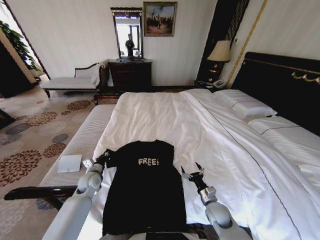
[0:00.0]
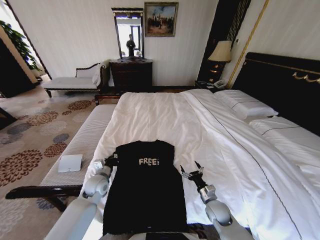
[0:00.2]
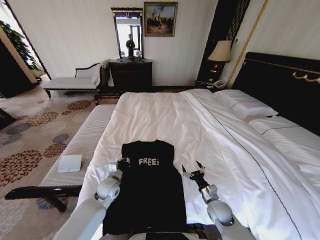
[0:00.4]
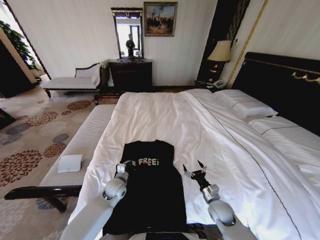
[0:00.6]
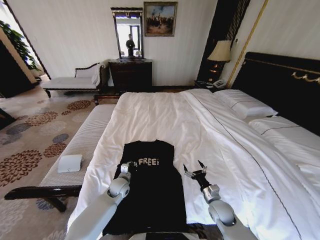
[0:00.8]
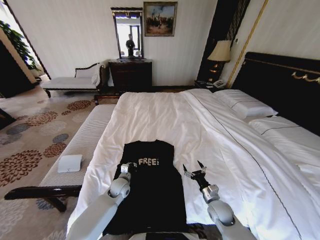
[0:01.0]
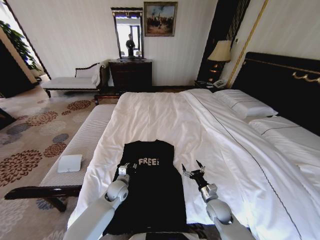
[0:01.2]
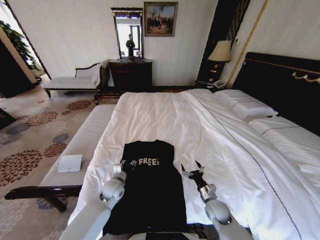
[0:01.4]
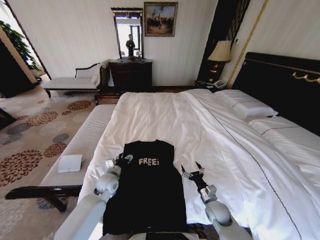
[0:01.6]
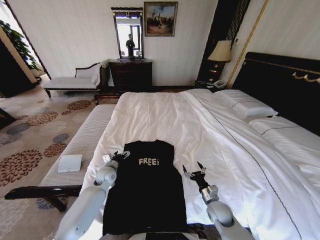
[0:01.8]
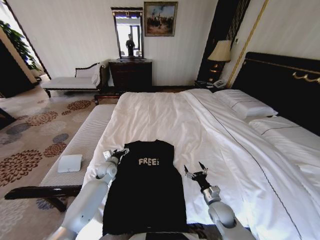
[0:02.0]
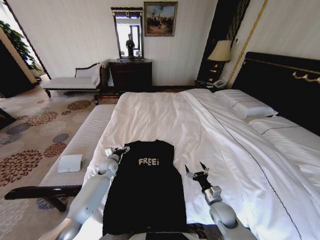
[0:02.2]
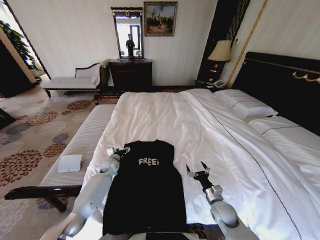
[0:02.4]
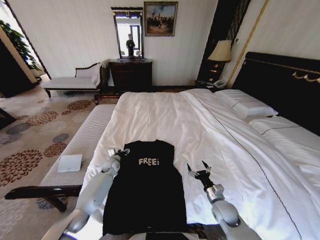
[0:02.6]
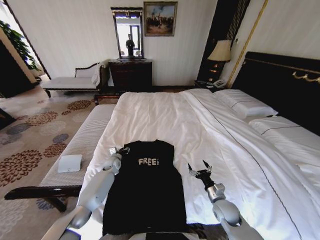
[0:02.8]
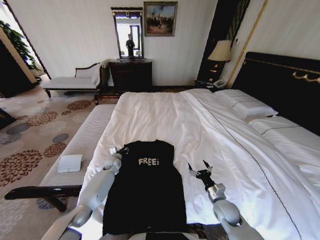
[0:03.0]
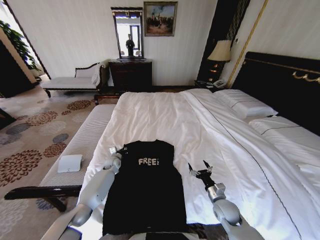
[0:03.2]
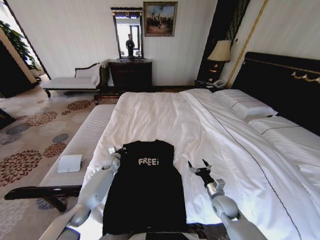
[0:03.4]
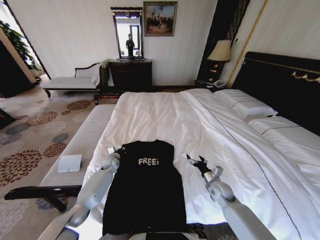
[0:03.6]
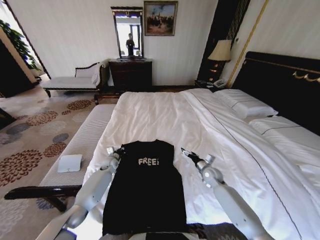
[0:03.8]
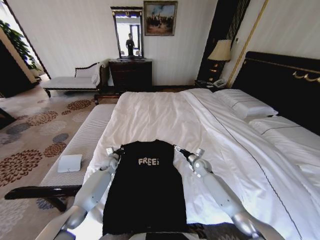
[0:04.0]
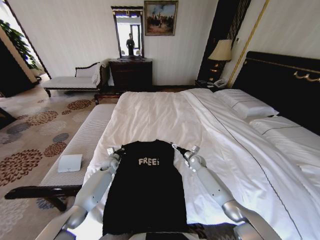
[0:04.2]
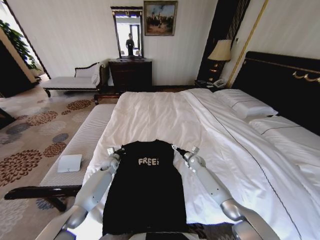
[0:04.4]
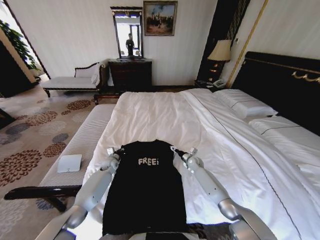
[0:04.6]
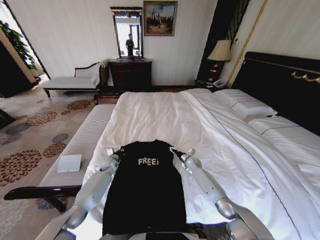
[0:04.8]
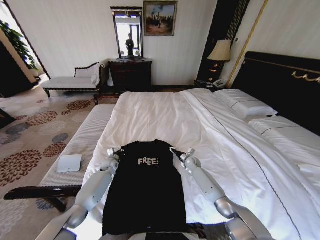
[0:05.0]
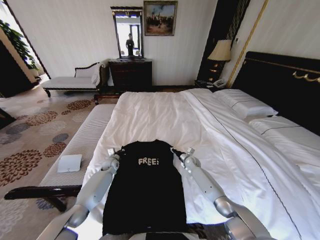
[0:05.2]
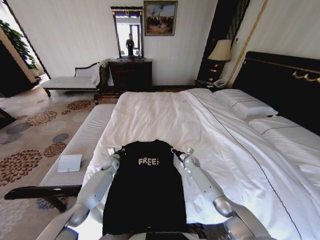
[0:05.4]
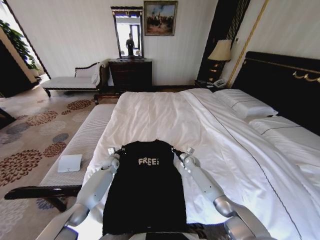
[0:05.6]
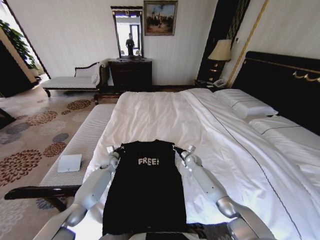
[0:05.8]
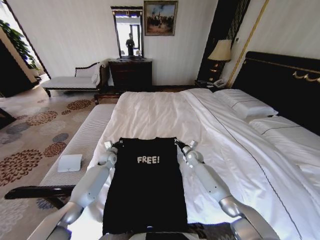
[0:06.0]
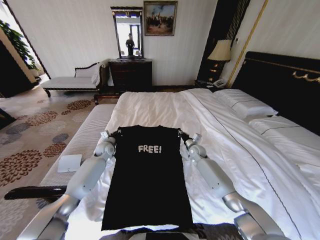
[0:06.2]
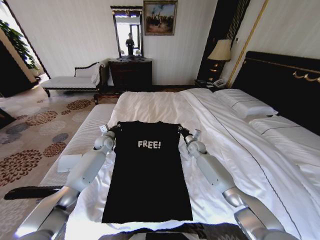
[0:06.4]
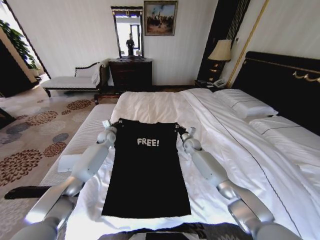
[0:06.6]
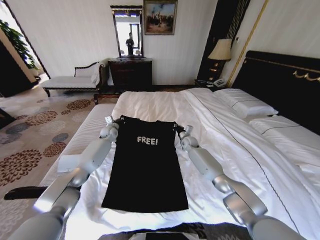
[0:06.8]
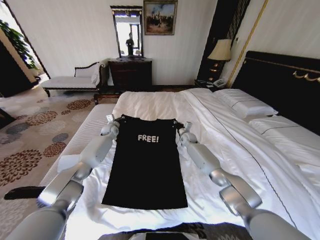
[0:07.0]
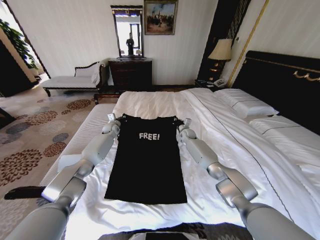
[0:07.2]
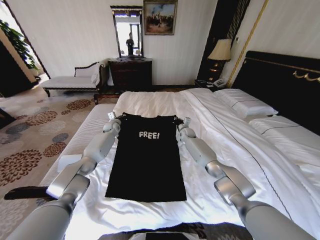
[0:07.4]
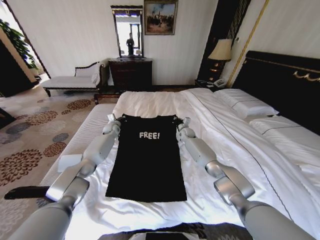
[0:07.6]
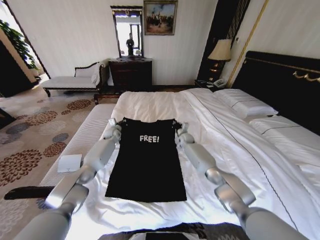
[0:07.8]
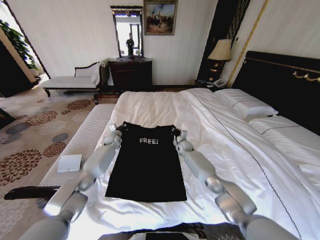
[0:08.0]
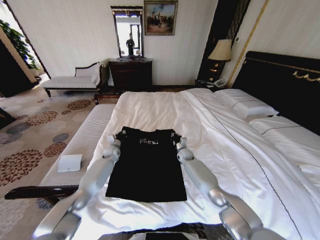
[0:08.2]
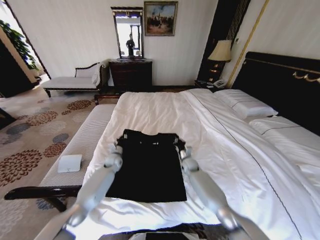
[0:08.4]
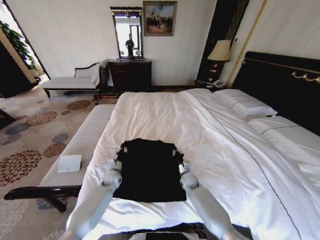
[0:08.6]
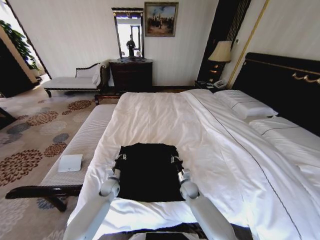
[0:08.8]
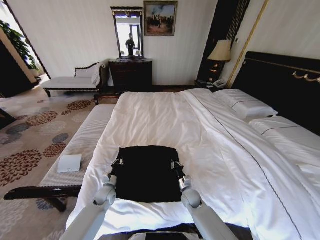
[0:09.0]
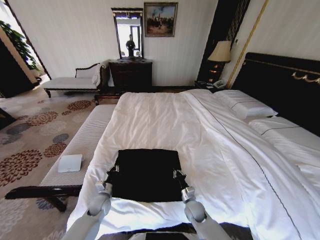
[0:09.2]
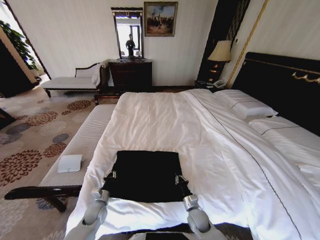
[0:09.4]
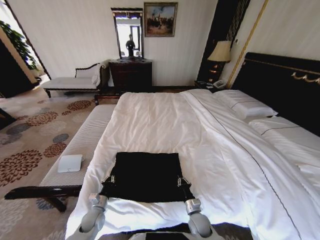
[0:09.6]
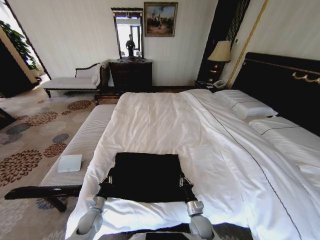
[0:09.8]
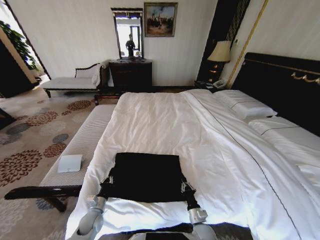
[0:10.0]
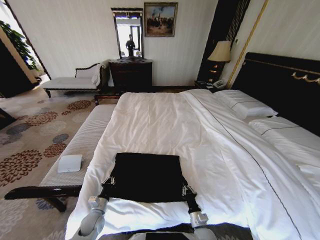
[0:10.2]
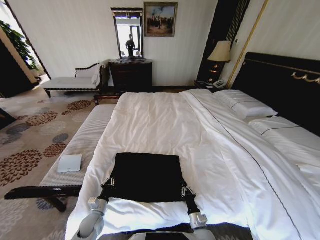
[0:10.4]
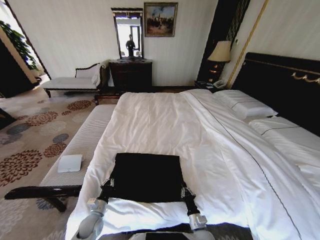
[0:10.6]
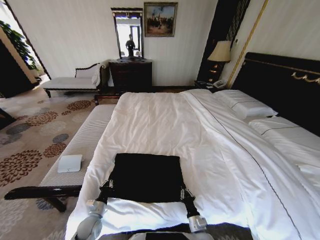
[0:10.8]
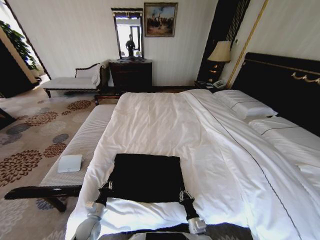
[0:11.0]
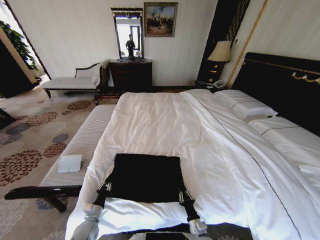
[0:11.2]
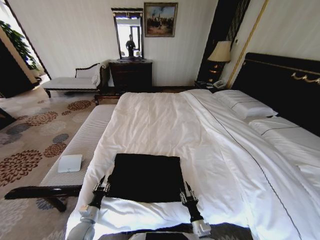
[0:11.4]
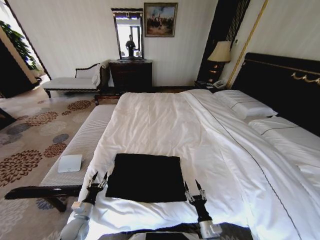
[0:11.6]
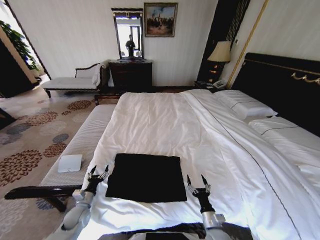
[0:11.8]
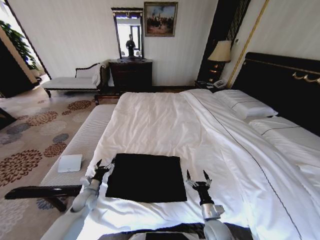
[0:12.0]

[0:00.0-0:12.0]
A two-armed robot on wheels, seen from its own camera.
Task of the whole recording: Fold the clothes on the bed.
0:00.0 to 0:01.6: The left gripper heads to the right, covering roughly 10 cm, and opens its fingers.
0:01.6 to 0:03.0: The left gripper goes approximately 15 cm forward and downward.
0:03.0 to 0:04.4: The left gripper closes its fingers; the right gripper shifts roughly 25 cm forward.
0:04.4 to 0:06.0: The left gripper is displaced upward by about 5 cm, while the right gripper closes.
0:06.0 to 0:07.6: Both grippers move forward and upward, about 15 cm.
0:07.6 to 0:09.0: The two grippers go roughly 35 cm backward and downward.
0:09.0 to 0:10.4: The two grippers go approximately 15 cm backward.
0:10.4 to 0:12.0: The right gripper travels upward by about 5 cm, and opens. Meanwhile the left gripper travels forward and upward by about 10 cm, and opens.

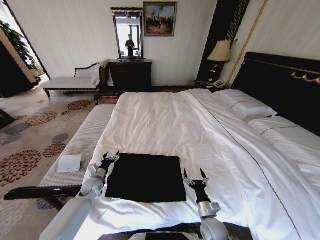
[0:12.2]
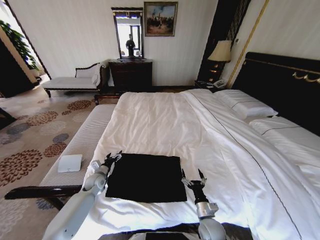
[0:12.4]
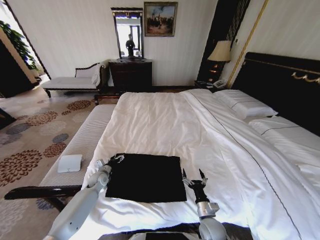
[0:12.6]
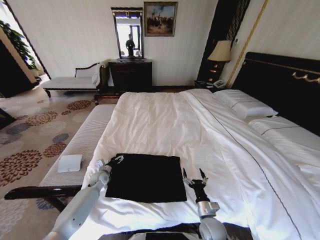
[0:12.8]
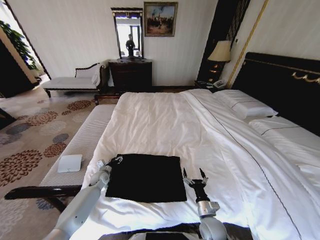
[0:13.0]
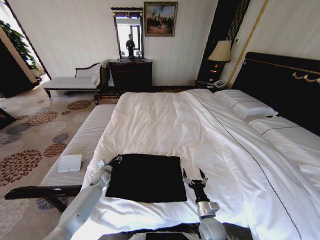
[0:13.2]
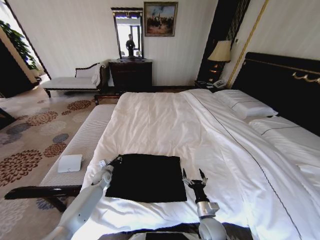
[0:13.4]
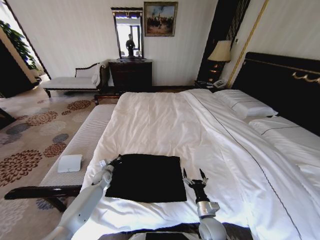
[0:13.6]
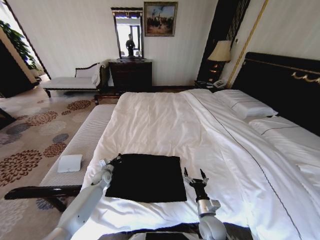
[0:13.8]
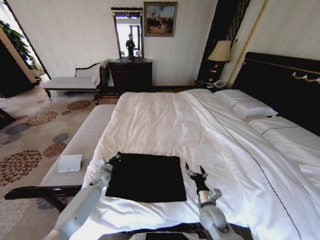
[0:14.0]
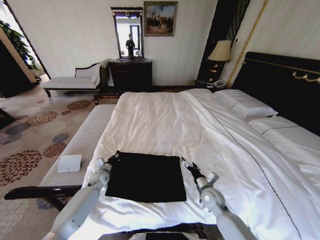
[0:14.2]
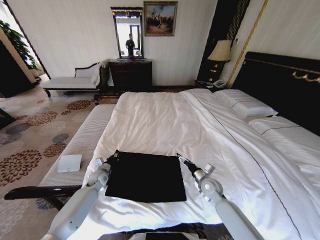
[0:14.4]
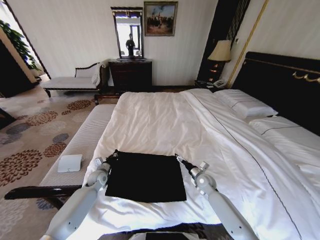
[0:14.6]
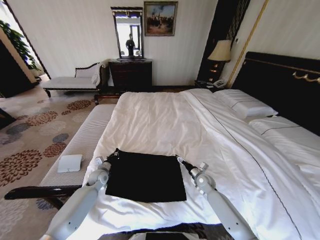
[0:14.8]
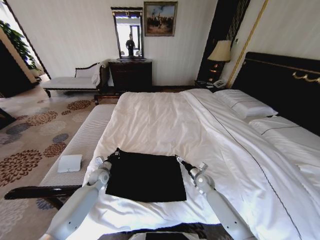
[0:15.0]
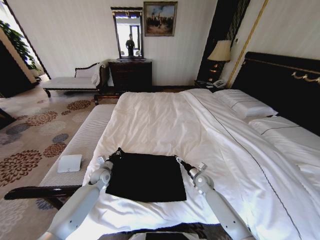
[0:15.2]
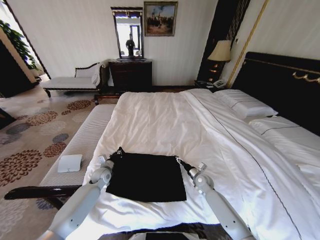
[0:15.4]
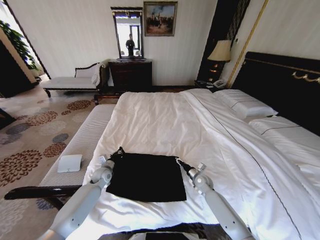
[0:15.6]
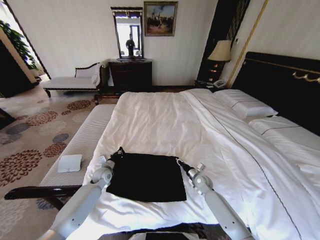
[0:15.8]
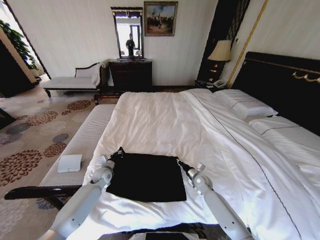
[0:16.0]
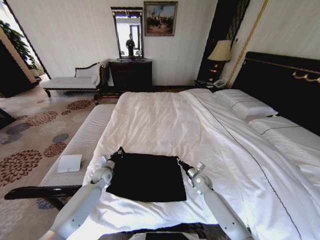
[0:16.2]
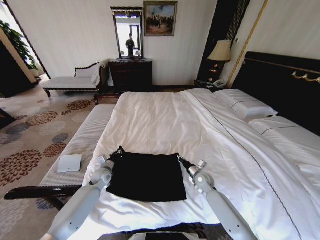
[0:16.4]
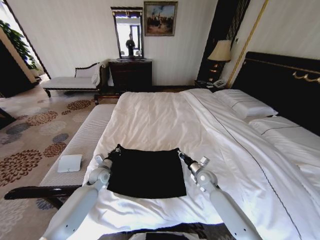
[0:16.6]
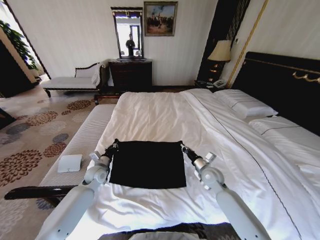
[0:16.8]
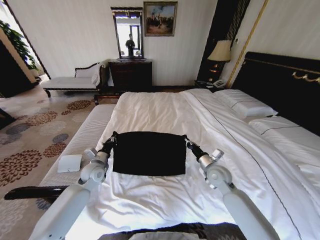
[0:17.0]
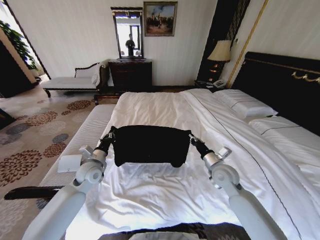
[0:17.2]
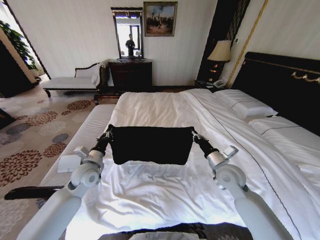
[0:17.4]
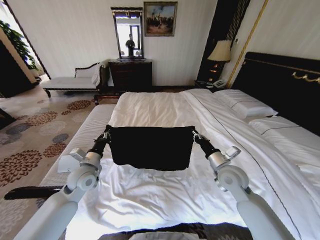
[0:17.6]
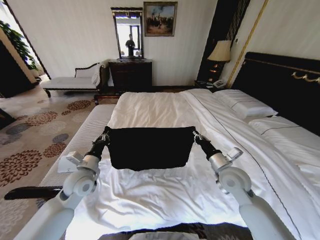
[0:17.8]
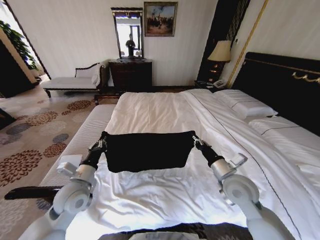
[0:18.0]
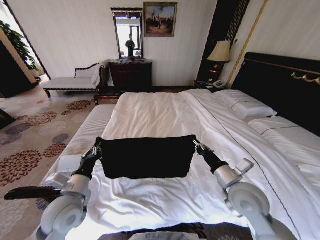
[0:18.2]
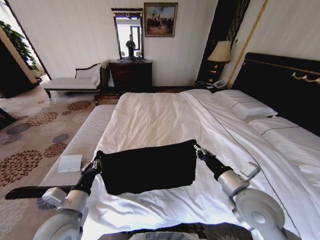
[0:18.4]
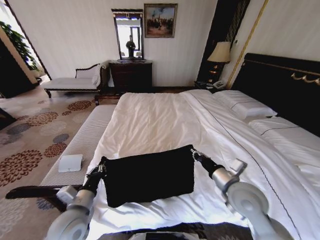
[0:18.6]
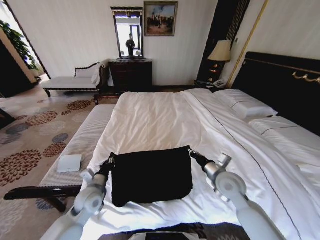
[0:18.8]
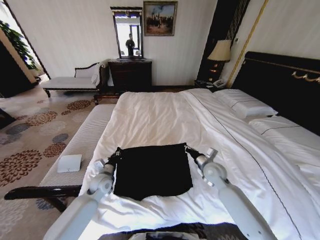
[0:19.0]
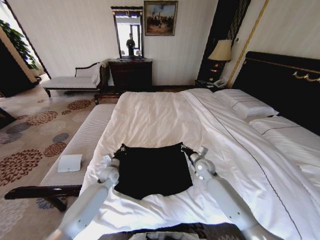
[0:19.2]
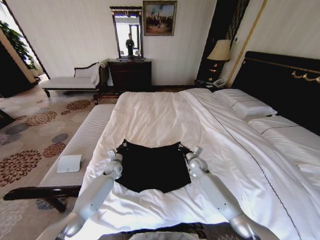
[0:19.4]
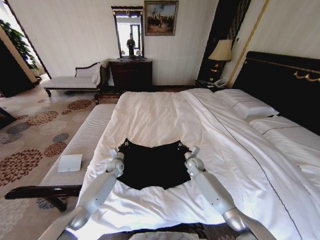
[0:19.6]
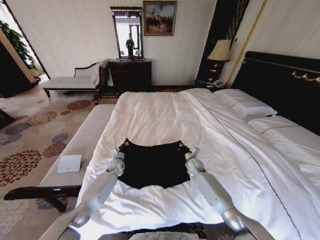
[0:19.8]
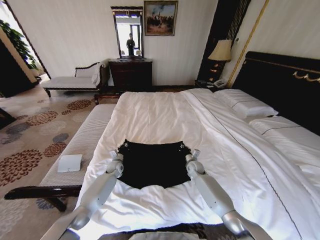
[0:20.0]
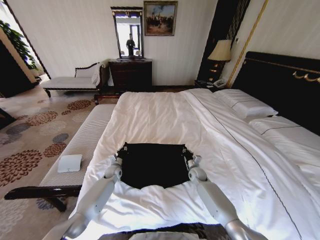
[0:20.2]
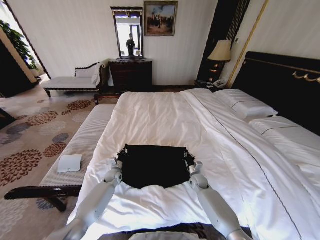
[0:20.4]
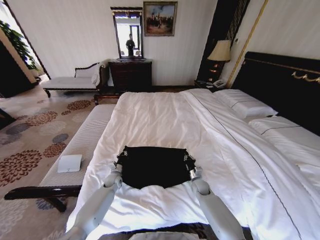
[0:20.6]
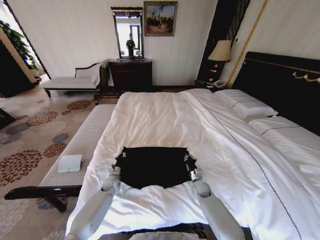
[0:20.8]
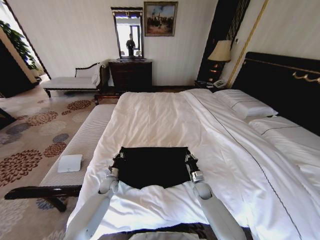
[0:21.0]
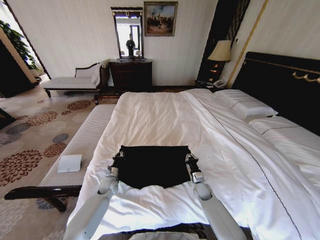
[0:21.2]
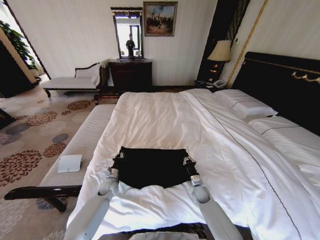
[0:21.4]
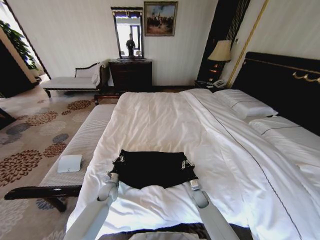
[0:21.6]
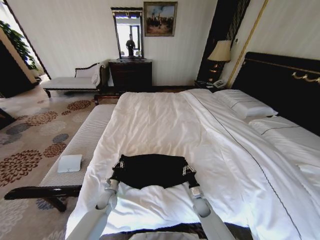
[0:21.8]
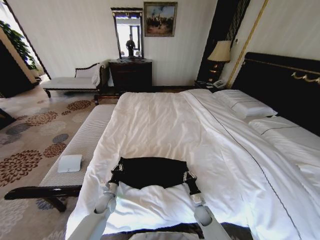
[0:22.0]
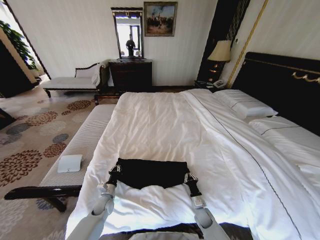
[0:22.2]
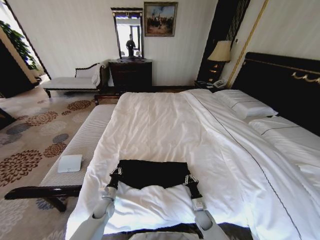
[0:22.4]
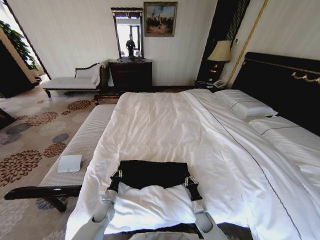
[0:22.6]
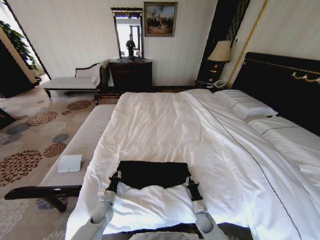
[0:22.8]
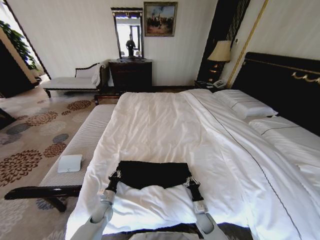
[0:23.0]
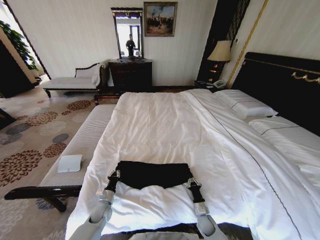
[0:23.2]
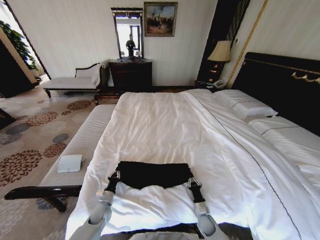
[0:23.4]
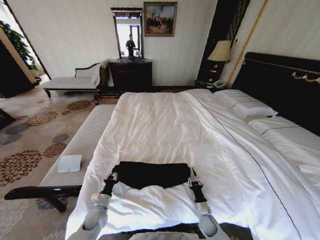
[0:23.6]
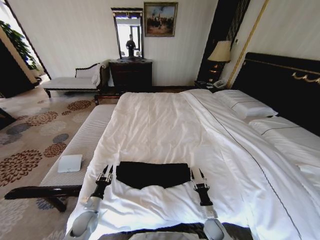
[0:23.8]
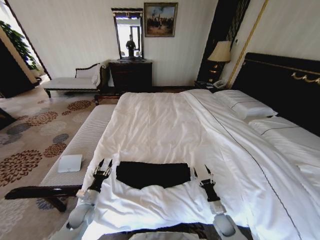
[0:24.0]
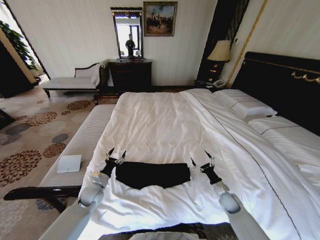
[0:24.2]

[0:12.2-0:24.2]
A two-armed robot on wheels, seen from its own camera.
Task of the whole recording: Fold the clothes on the bed.
0:12.2 to 0:13.8: The left gripper shifts some 5 cm forward, and closes.
0:13.8 to 0:15.2: The right gripper moves forward, about 20 cm.
0:15.2 to 0:16.6: The right gripper moves upward, roughly 5 cm, and closes.
0:16.6 to 0:18.2: The left gripper shifts about 25 cm backward and upward, while the right gripper travels upward and backward by roughly 25 cm.
0:18.2 to 0:19.8: Both grippers move forward and downward, some 35 cm.
0:19.8 to 0:21.2: The left gripper travels backward by approximately 10 cm; the right gripper goes roughly 15 cm backward and downward.
0:21.2 to 0:22.6: Both grippers travel together backward and downward, roughly 15 cm.
0:22.6 to 0:24.2: The right gripper moves to the right, upward and forward, about 15 cm, and opens its fingers. The left gripper travels upward by about 10 cm, and opens up.
